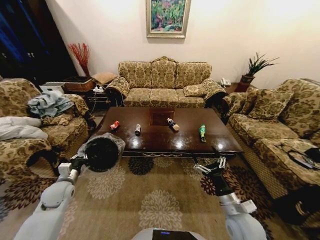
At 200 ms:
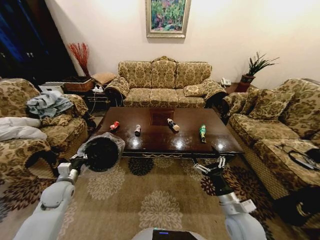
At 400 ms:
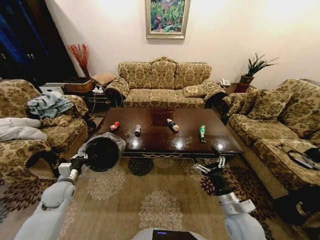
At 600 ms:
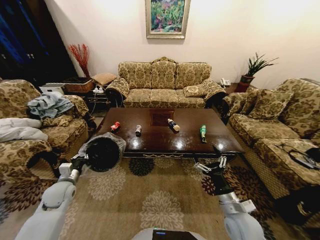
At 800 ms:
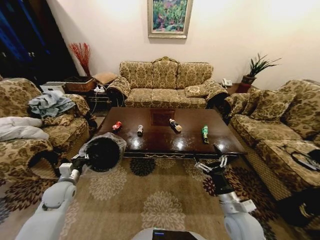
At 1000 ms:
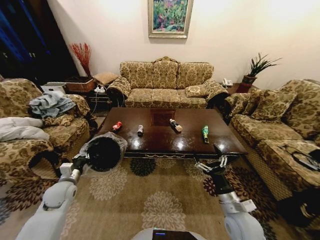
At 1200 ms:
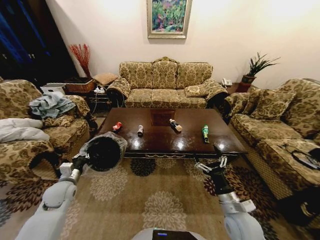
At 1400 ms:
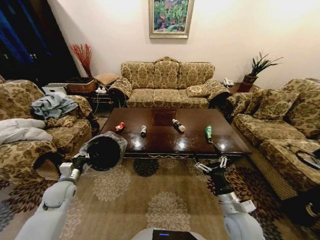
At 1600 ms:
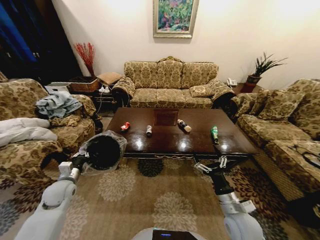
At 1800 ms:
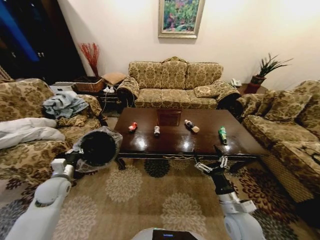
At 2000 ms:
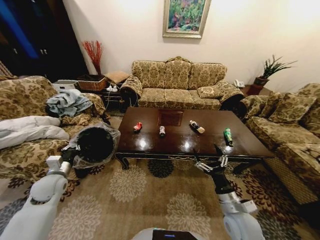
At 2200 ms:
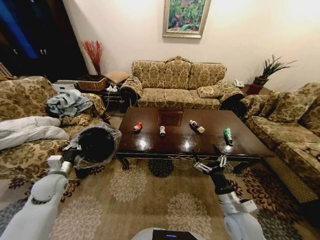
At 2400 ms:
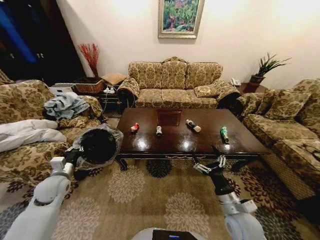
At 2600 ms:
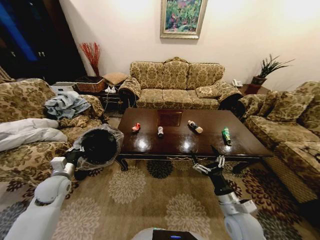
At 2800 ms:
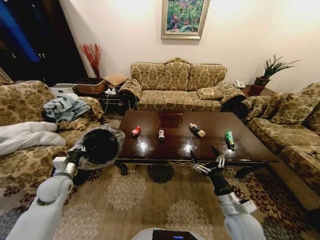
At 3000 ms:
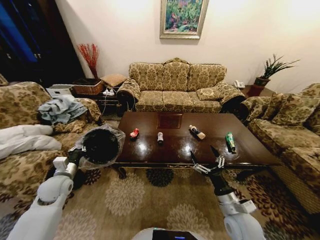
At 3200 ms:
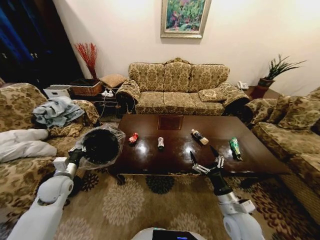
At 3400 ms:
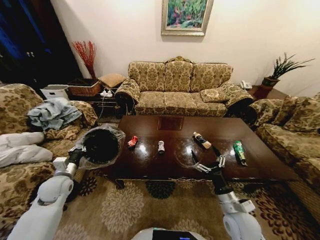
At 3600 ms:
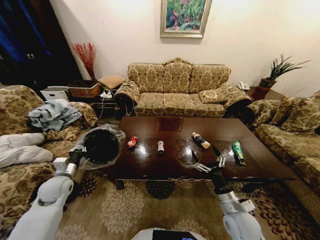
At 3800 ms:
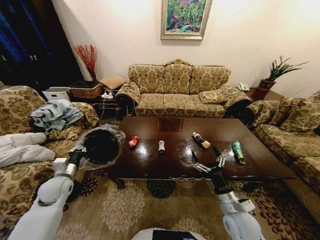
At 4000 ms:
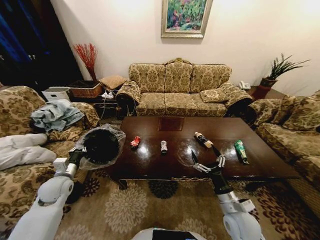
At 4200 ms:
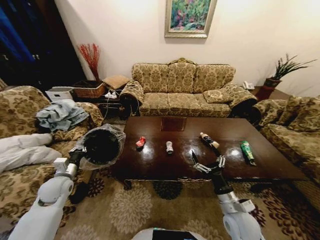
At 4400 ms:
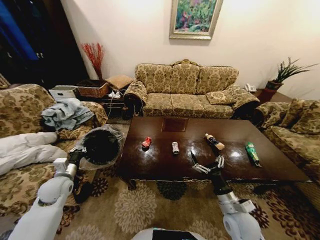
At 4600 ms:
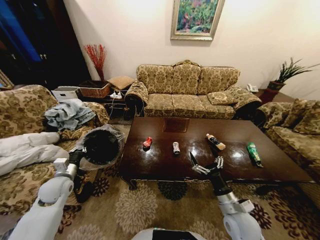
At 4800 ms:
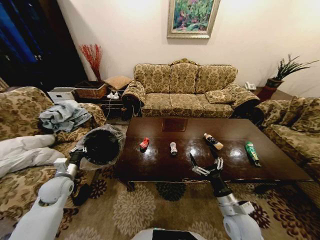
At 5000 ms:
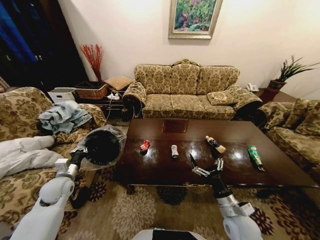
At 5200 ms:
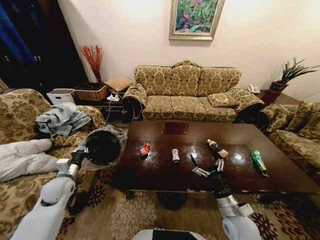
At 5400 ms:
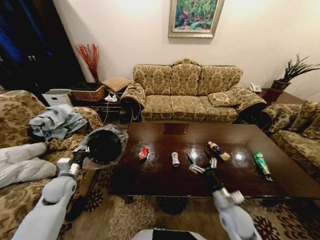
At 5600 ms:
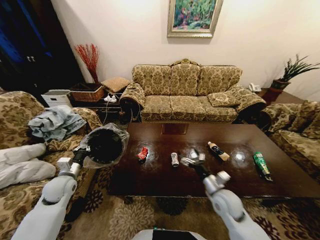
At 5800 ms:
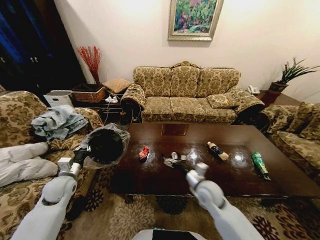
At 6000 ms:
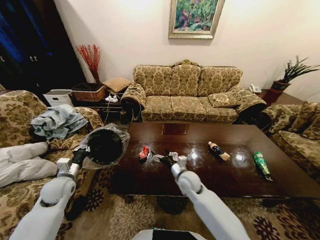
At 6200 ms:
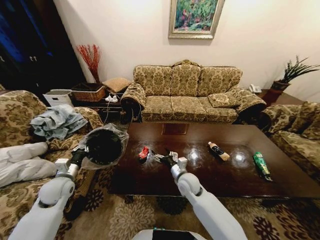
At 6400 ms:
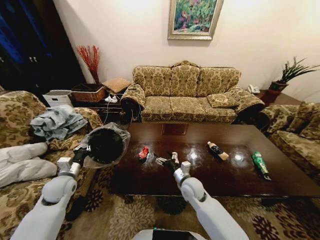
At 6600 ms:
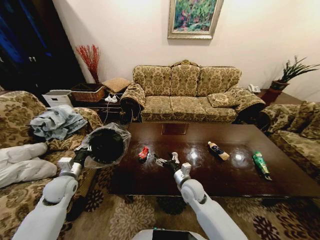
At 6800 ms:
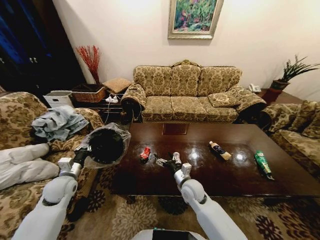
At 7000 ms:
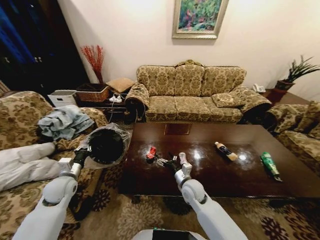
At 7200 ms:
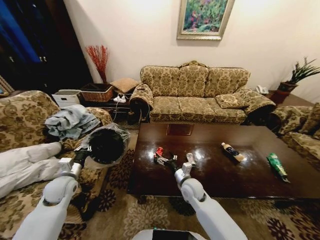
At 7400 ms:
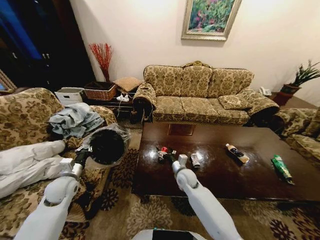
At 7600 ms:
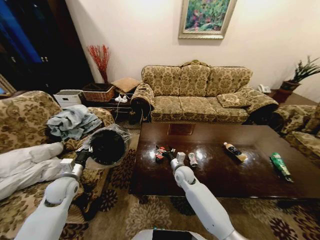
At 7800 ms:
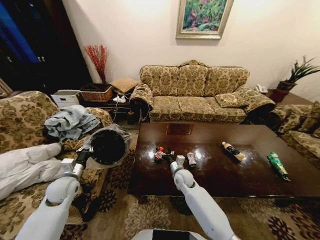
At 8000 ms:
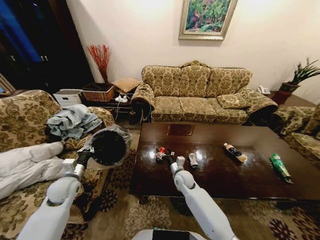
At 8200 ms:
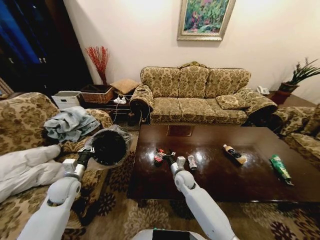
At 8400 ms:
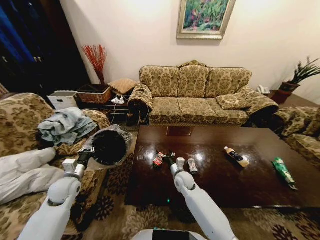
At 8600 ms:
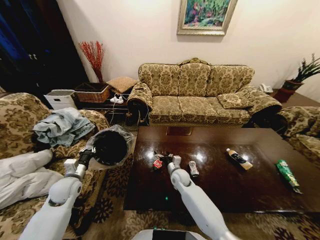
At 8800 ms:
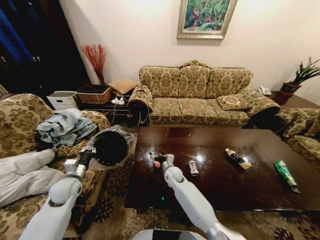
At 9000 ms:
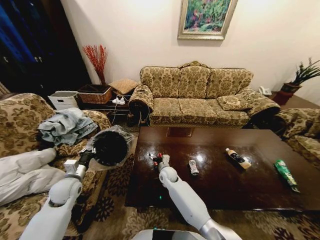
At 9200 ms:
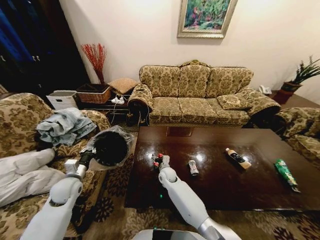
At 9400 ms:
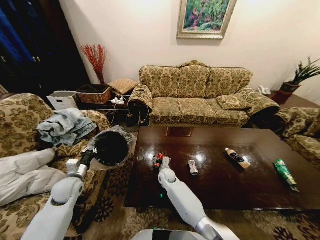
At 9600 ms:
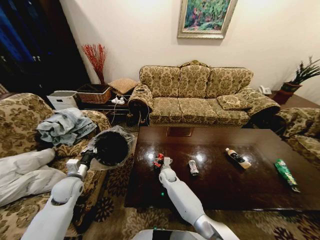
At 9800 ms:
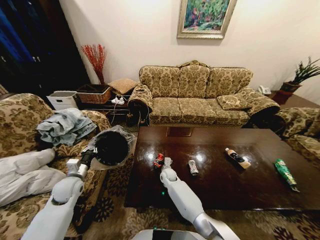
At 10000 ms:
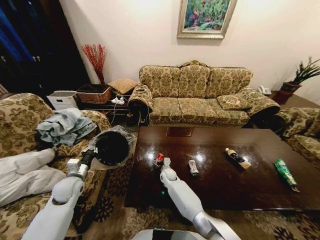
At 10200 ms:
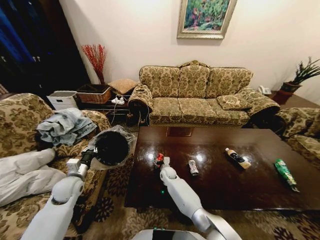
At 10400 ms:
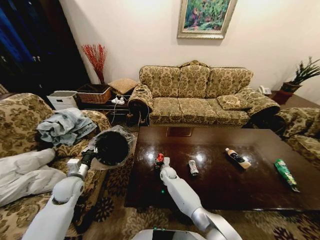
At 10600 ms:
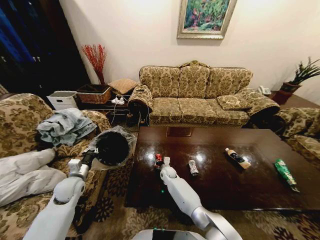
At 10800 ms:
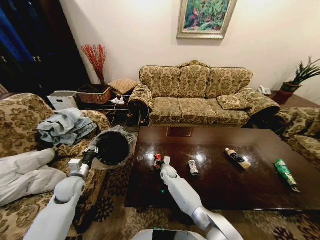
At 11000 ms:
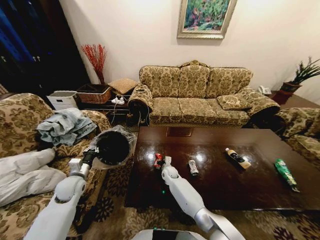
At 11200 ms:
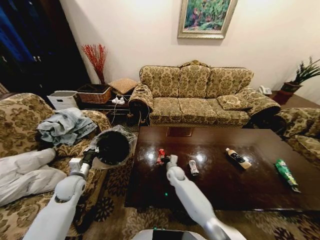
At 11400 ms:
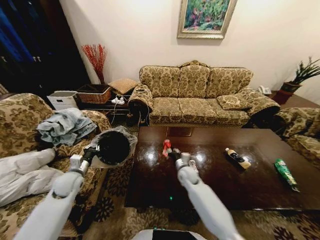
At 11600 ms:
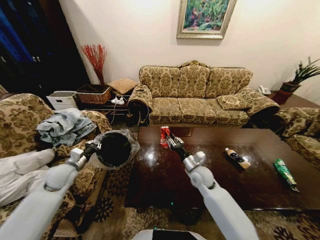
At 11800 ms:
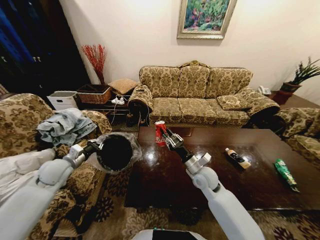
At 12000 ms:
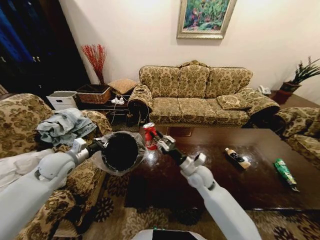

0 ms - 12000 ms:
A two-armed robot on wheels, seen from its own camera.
Task of the whole recording: Move to the front of the table and place the trash on the table into the trash bin.
4400 ms - 6000 ms: The right gripper heads to the left and forward, covering some 20 cm.
6000 ms - 7600 ms: The right gripper goes some 5 cm forward.
7600 ms - 9000 ms: The right gripper shifts roughly 10 cm to the left.
9000 ms - 10400 ms: The right gripper is displaced downward by roughly 5 cm.
10400 ms - 12000 ms: The right gripper goes roughly 25 cm upward, to the right and backward, and closes, while the left gripper heads upward, covering approximately 10 cm.

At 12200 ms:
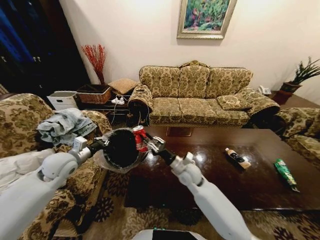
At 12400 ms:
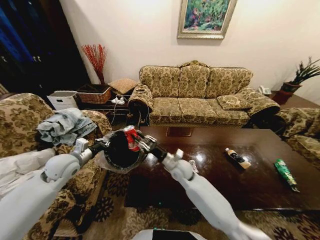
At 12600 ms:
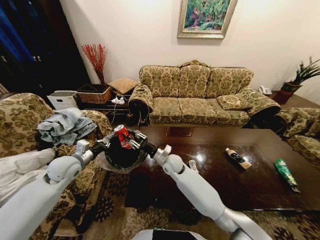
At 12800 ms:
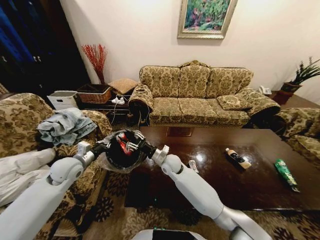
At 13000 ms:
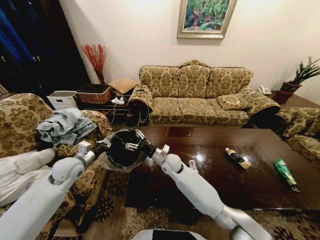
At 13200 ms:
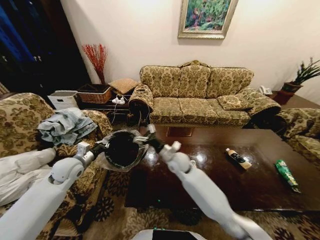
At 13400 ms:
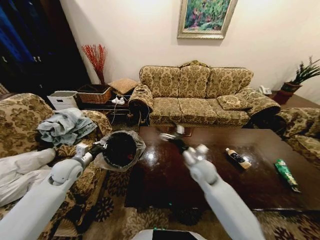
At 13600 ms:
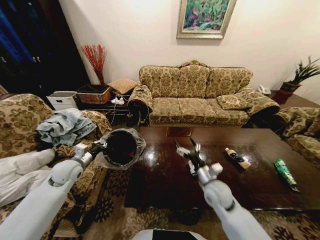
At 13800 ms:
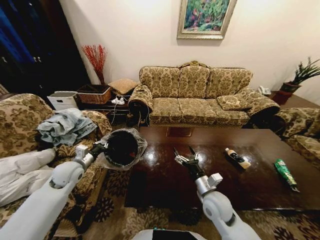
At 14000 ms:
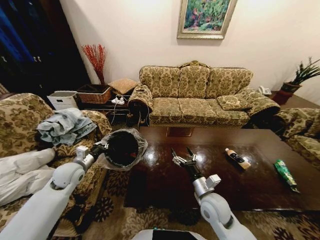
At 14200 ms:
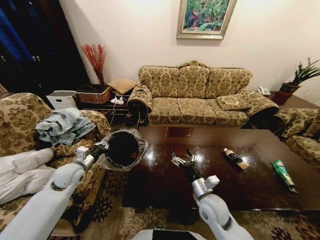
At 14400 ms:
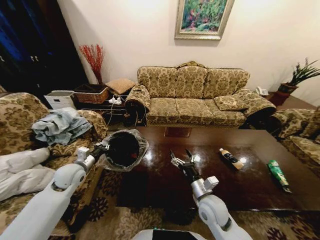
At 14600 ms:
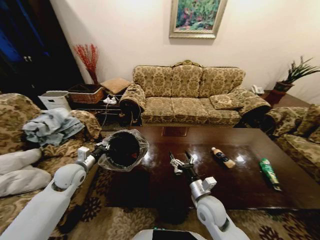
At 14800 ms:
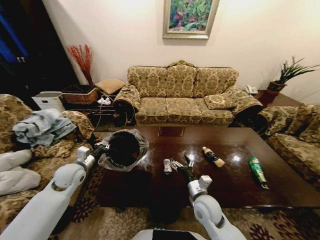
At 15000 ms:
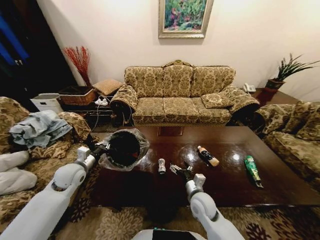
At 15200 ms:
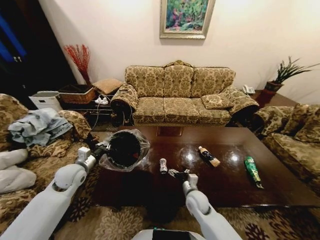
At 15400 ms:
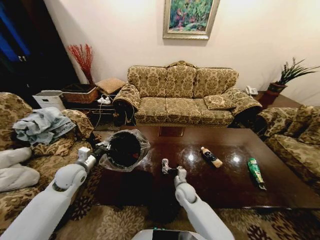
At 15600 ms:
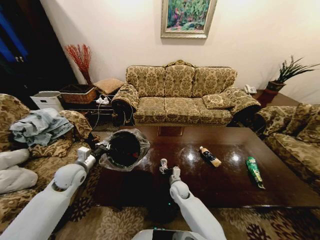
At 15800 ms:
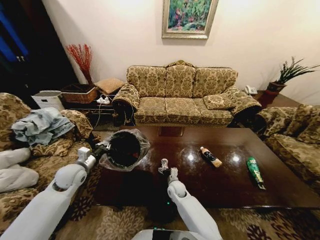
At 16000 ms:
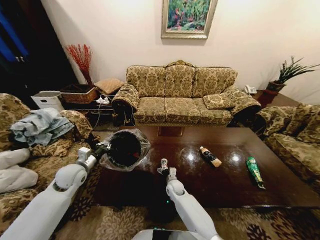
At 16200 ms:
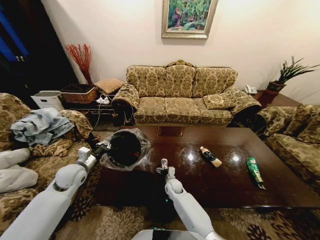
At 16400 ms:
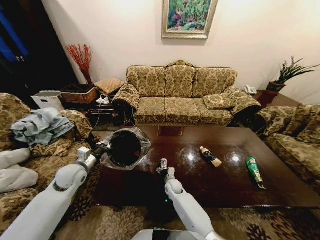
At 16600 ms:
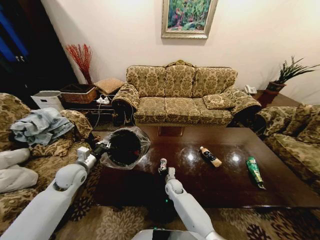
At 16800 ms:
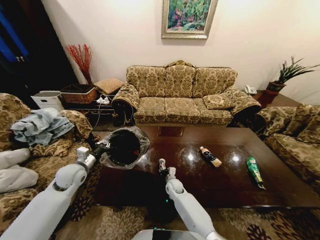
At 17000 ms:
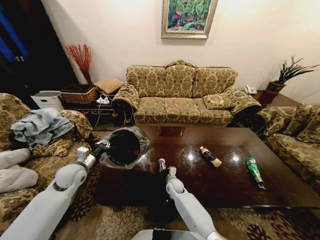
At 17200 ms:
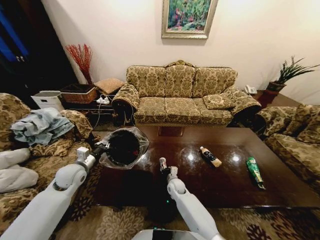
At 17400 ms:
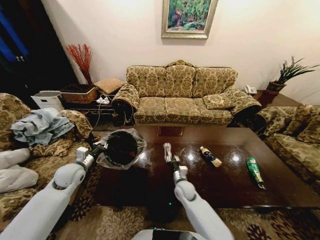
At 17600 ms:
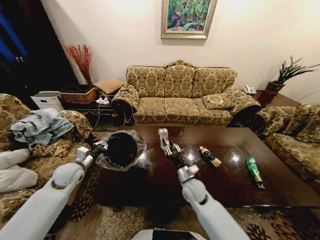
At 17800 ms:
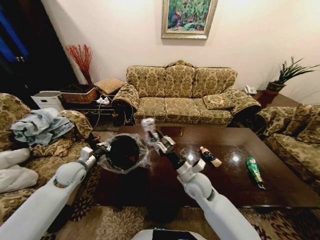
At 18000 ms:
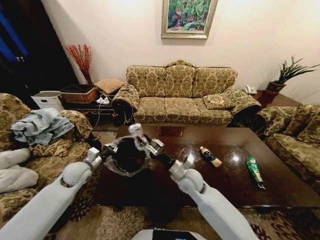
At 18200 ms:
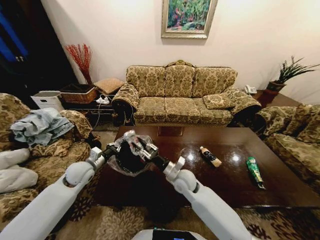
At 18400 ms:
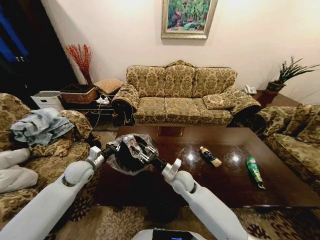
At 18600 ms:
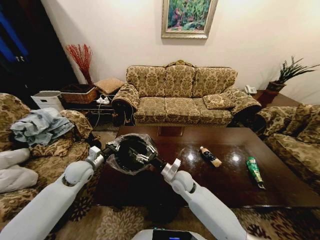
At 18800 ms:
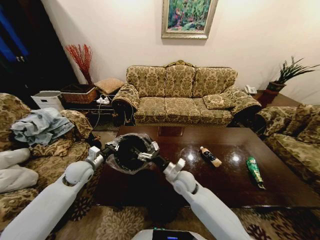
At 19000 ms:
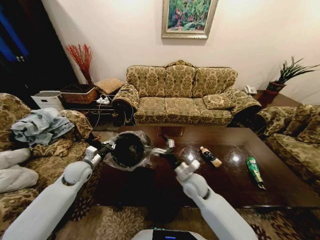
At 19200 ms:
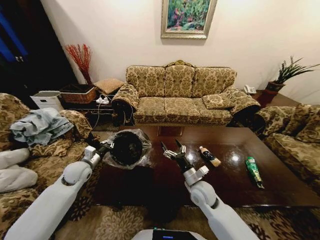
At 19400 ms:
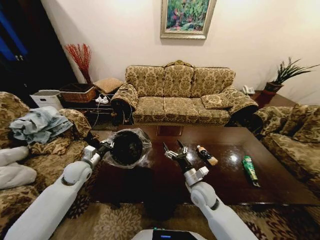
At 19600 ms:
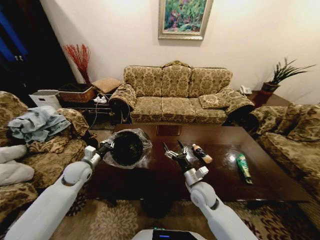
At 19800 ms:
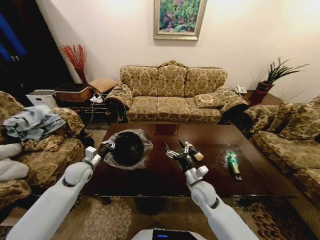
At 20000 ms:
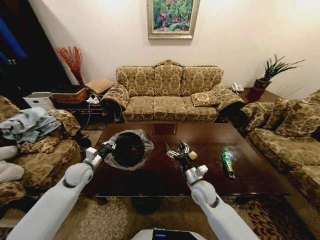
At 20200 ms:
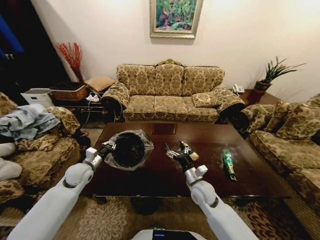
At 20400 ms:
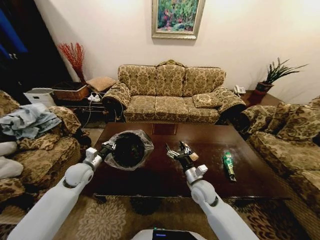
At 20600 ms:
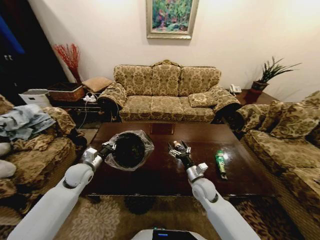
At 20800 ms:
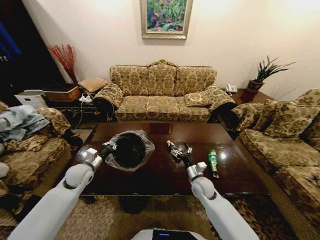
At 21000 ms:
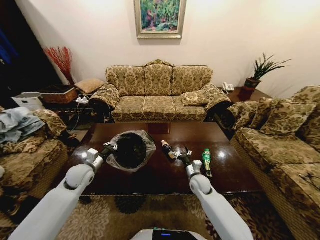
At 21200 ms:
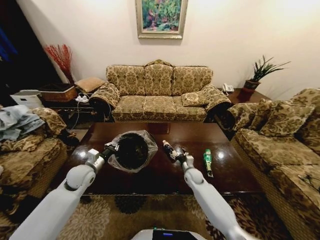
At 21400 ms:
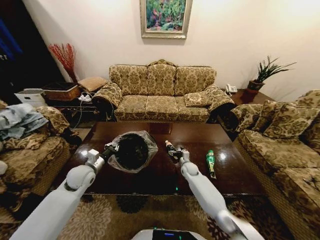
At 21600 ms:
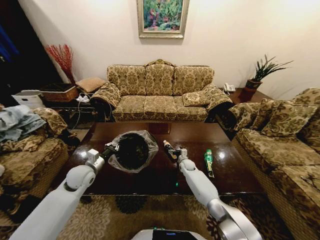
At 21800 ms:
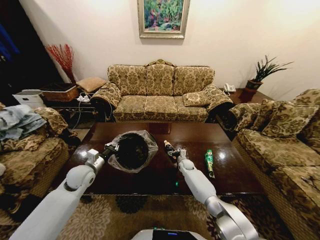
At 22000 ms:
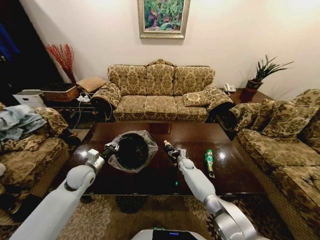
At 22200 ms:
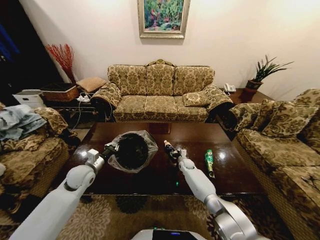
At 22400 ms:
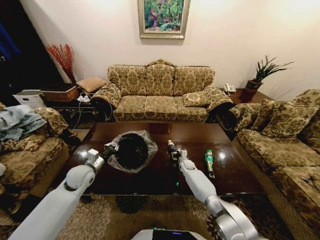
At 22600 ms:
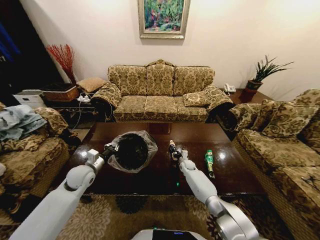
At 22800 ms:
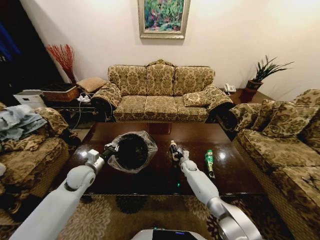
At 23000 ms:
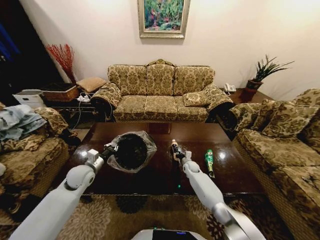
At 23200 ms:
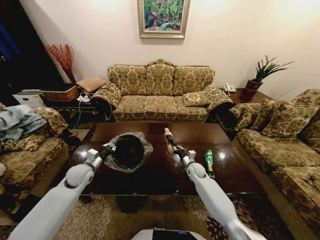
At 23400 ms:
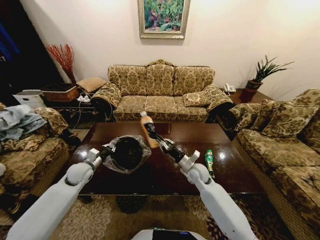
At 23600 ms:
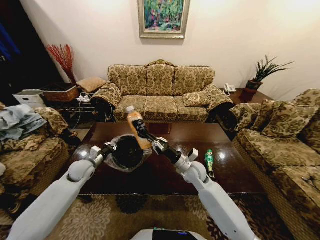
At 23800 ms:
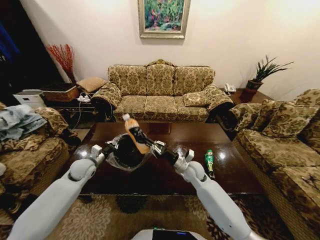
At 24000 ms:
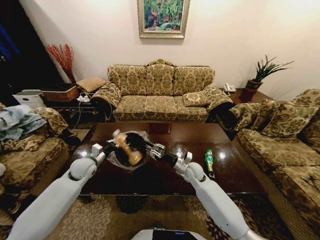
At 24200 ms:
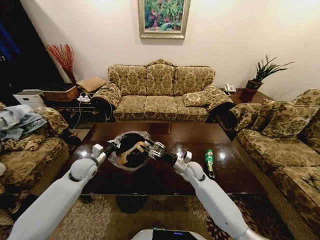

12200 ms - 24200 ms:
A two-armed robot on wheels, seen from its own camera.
Task of the whole recording: Move to the front of the table and place the trash on the table into the trash bin.
12200 ms - 13800 ms: The left gripper shifts approximately 5 cm downward. The right gripper heads backward and to the right, covering roughly 15 cm, and opens up.
13800 ms - 15200 ms: The right gripper shifts about 10 cm downward.
15200 ms - 16600 ms: The right gripper is displaced downward, forward and to the left by some 15 cm, and closes up.
16600 ms - 18200 ms: The right gripper shifts roughly 20 cm upward.
18200 ms - 19800 ms: The right gripper travels to the right by some 10 cm, and opens.
19800 ms - 21200 ms: The right gripper moves forward and downward, about 15 cm.
21200 ms - 22600 ms: The right gripper moves forward and downward, about 10 cm, and closes its fingers.
22600 ms - 24200 ms: The right gripper is displaced upward and backward by roughly 20 cm.
